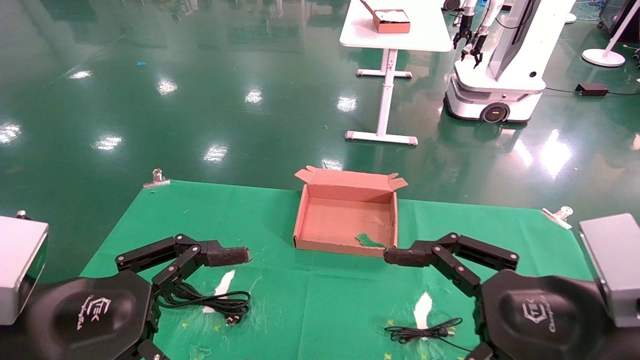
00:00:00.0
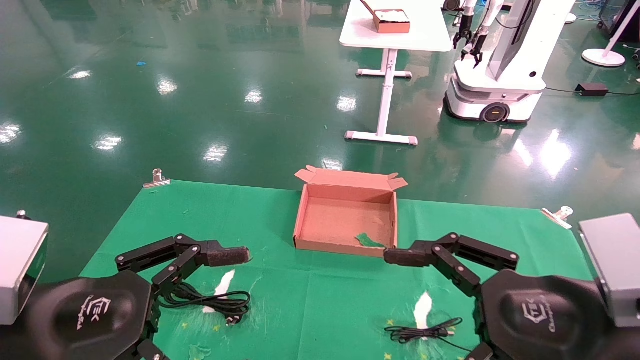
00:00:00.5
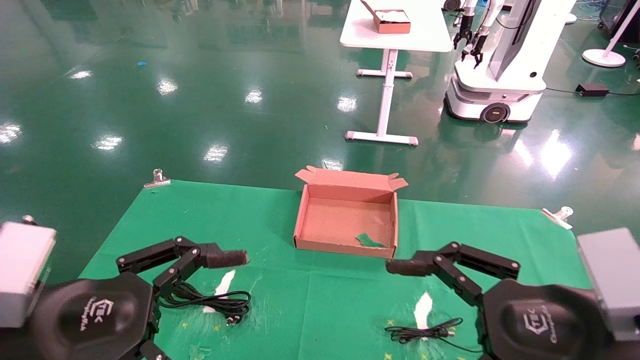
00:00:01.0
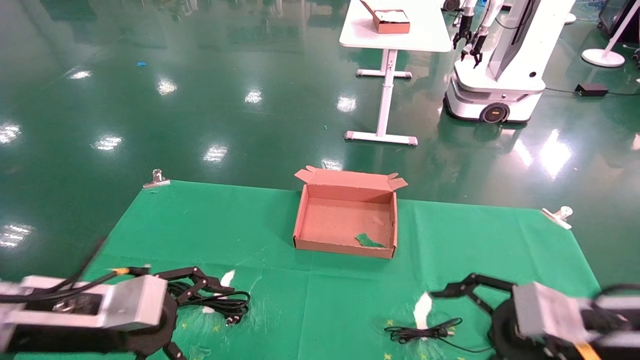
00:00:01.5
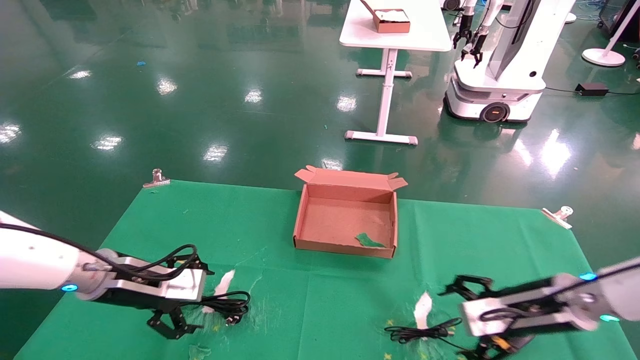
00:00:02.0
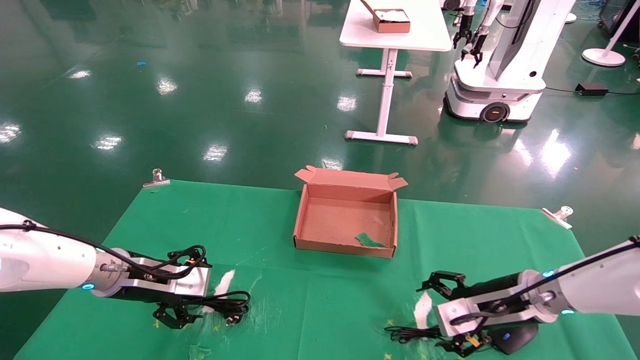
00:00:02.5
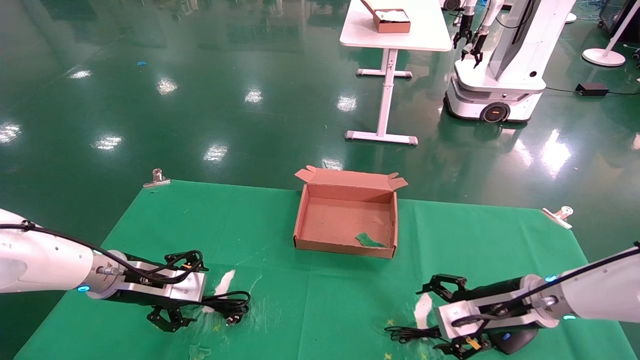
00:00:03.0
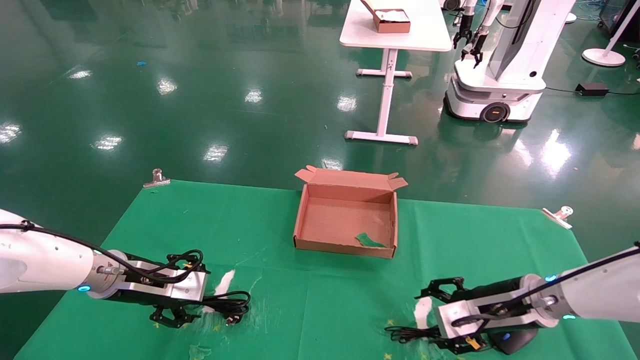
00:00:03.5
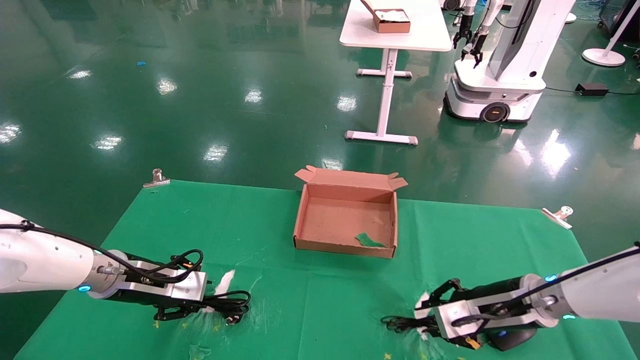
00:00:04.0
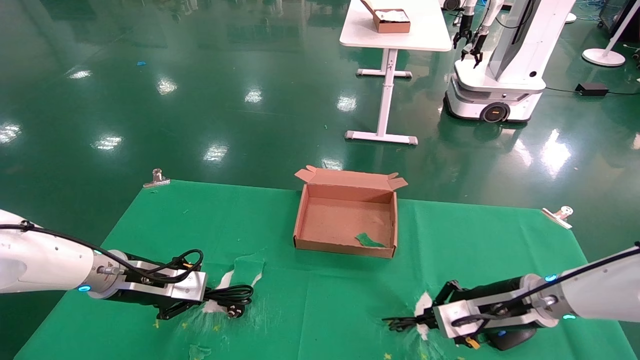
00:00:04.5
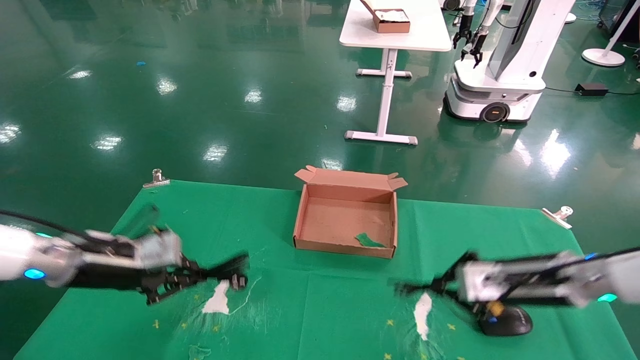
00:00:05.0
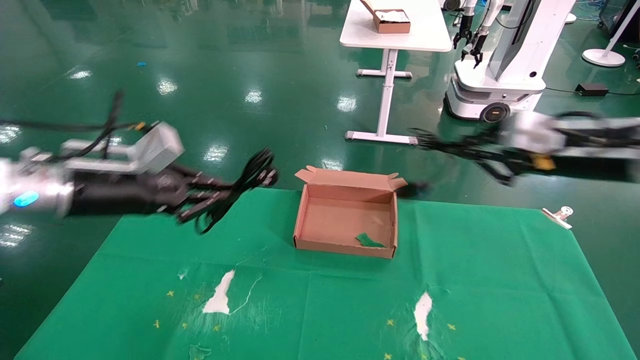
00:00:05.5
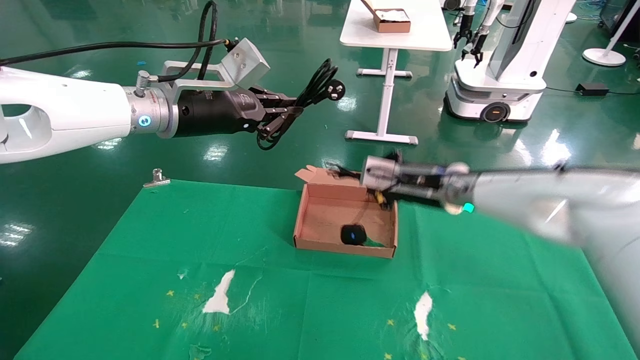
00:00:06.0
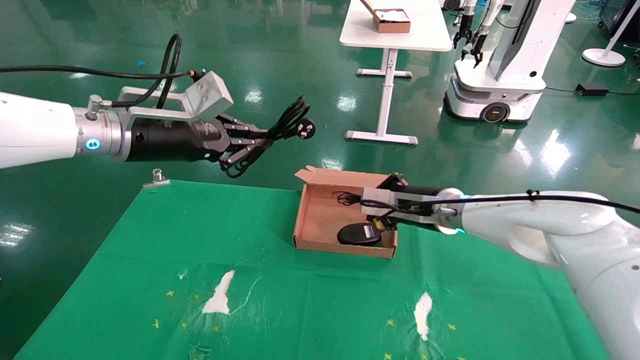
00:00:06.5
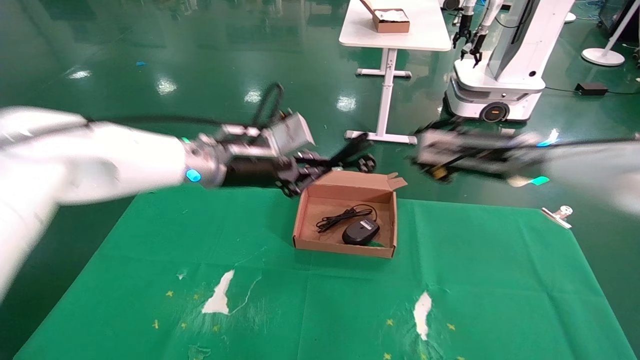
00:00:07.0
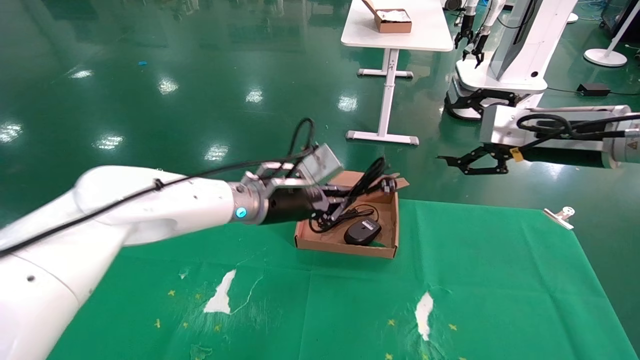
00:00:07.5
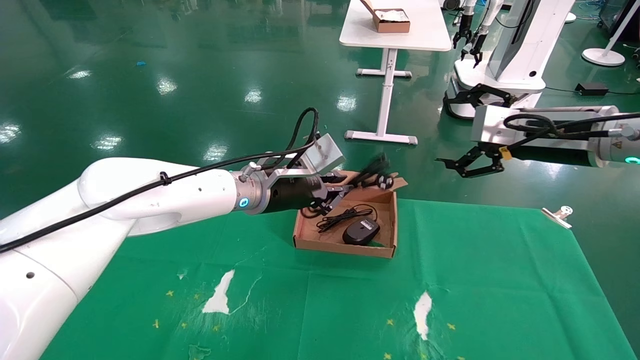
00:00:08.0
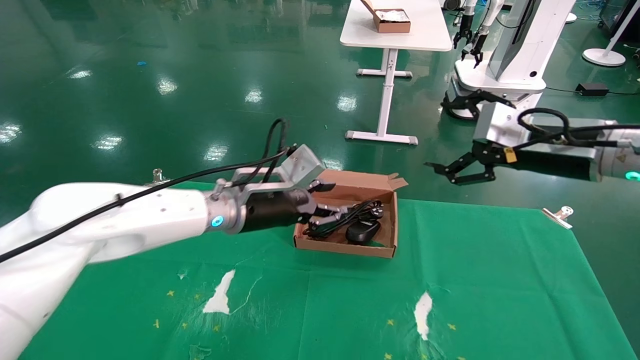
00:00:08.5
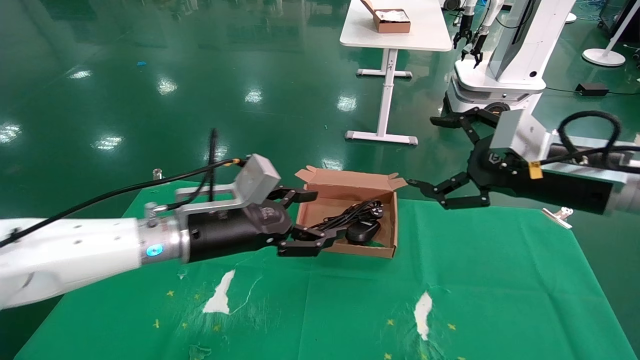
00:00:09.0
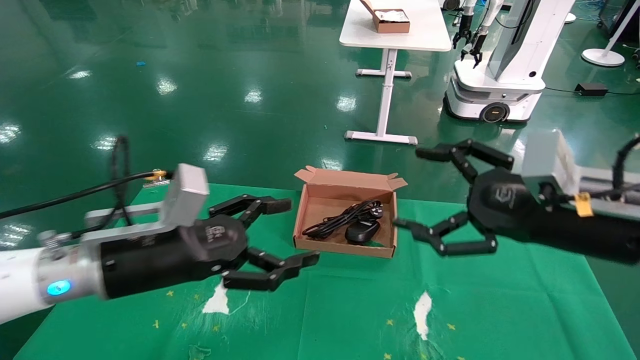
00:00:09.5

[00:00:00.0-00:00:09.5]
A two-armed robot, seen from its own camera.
Step, 00:00:02.0 to 00:00:04.5: Grab and lift both the mouse and power cord from the accessory packaging area at the same time.
Step, 00:00:05.0 to 00:00:08.5: Place the mouse and power cord into the box.
00:00:00.0 to 00:00:02.0: The left gripper goes roughly 20 cm forward. The right gripper is displaced forward and downward by roughly 20 cm.
00:00:02.0 to 00:00:04.0: The left gripper closes. The right gripper closes its fingers.
00:00:04.0 to 00:00:05.5: The grippers both shift upward by about 20 cm. The right gripper closes its fingers. The left gripper closes up.
00:00:05.5 to 00:00:07.5: The right gripper goes to the left and returns, roughly 10 cm each way, and opens up. The left gripper is displaced to the right by some 20 cm.
00:00:07.5 to 00:00:09.5: The right gripper travels backward and downward by roughly 15 cm. Meanwhile the left gripper moves backward and to the left, roughly 20 cm, and opens up.

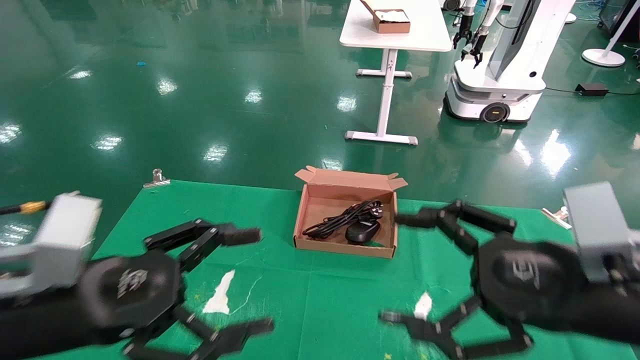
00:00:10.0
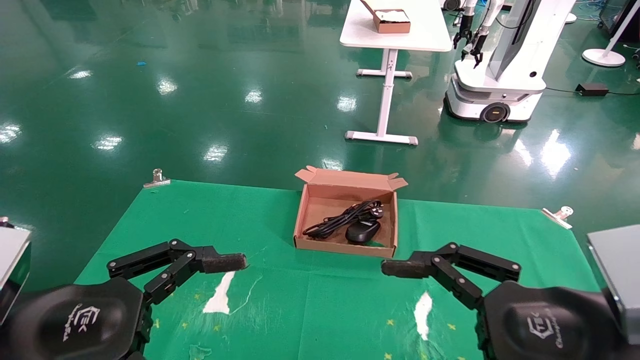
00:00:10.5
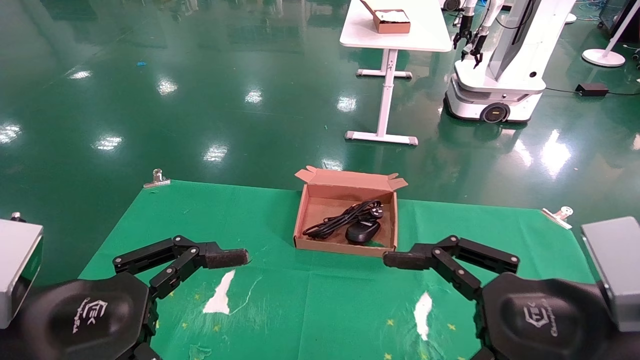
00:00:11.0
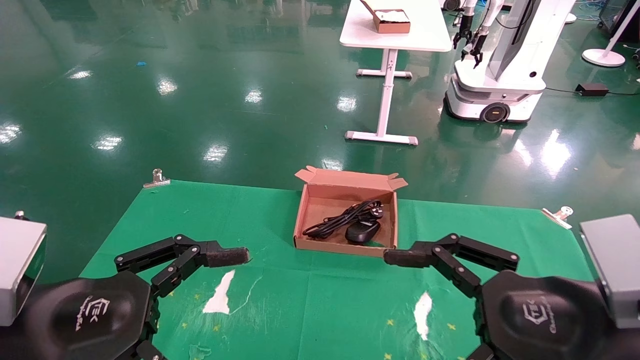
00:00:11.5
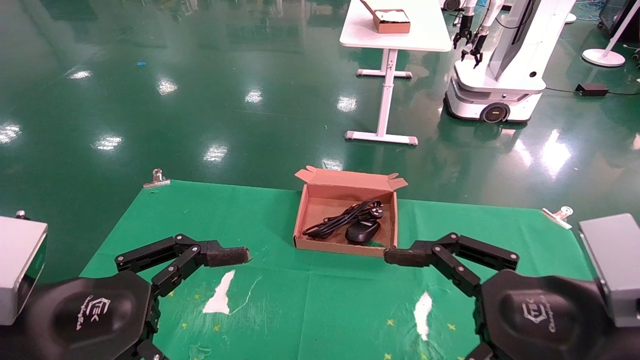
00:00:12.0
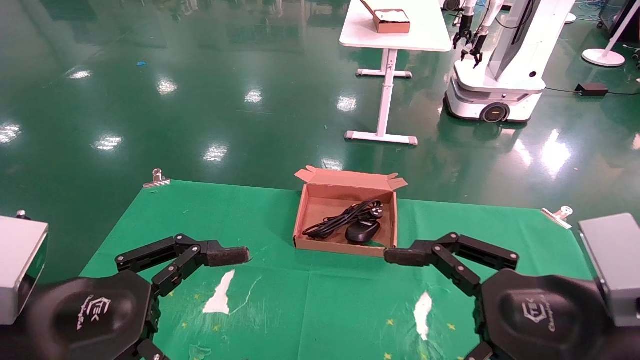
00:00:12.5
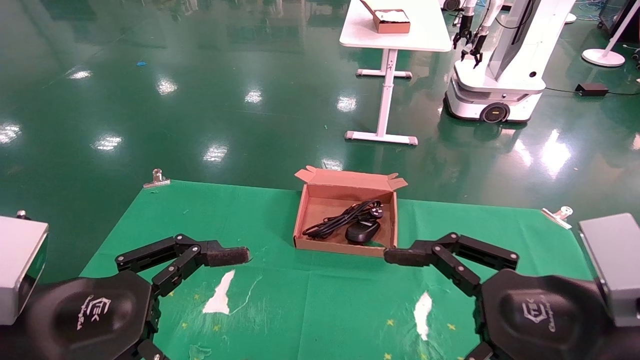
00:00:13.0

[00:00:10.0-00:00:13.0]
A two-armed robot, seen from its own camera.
00:00:11.5 to 00:00:13.0: Neither gripper changes place.
